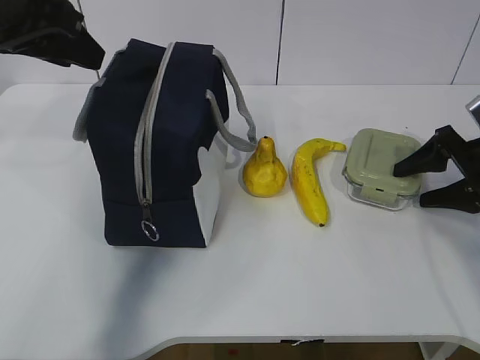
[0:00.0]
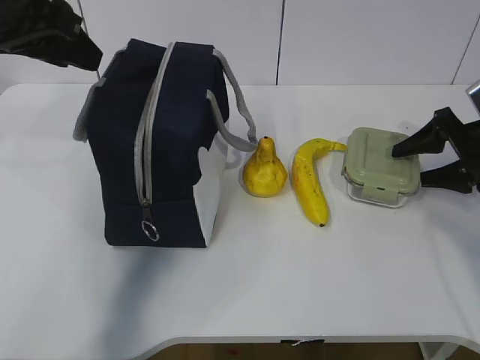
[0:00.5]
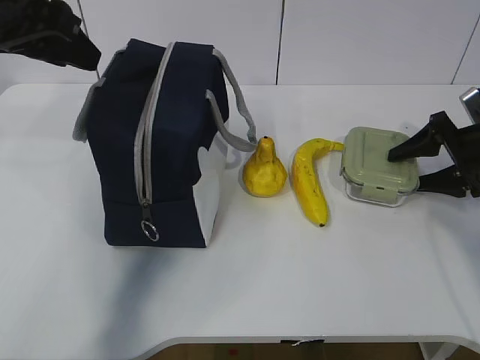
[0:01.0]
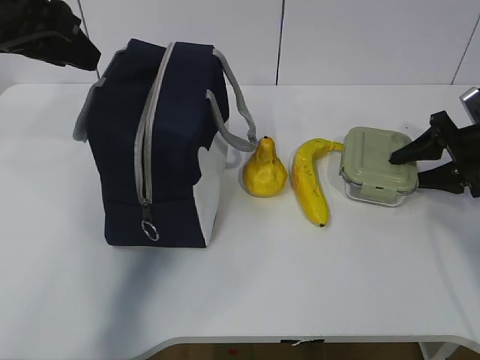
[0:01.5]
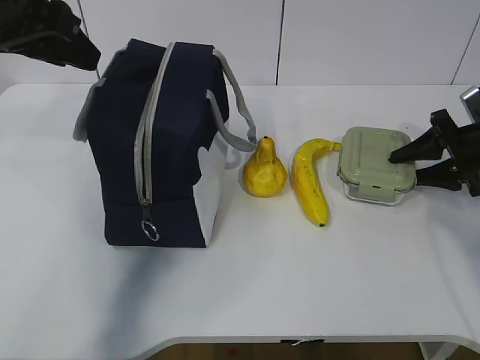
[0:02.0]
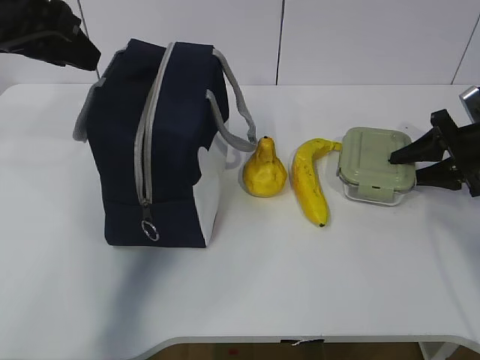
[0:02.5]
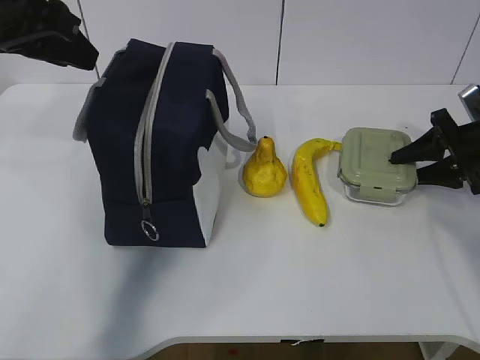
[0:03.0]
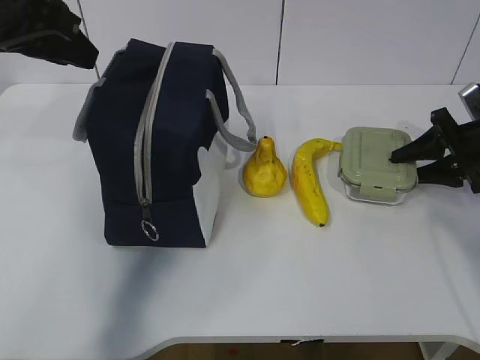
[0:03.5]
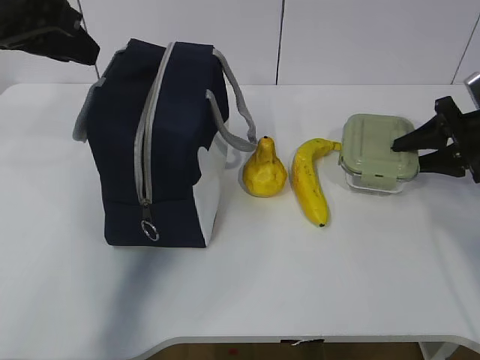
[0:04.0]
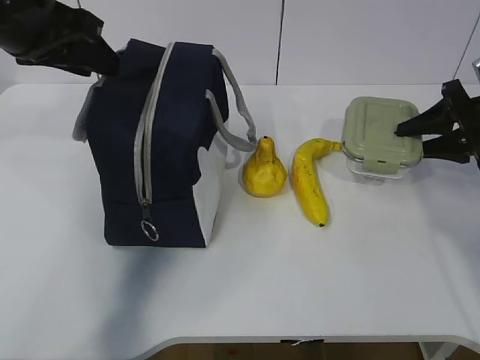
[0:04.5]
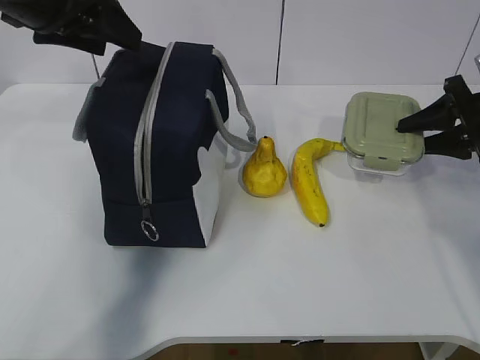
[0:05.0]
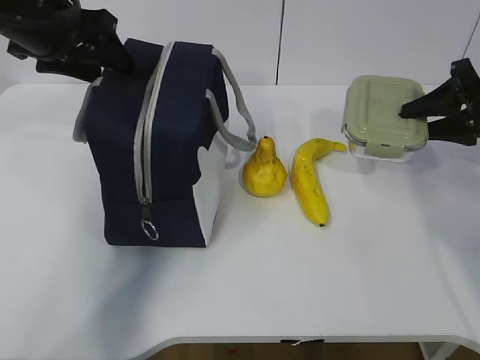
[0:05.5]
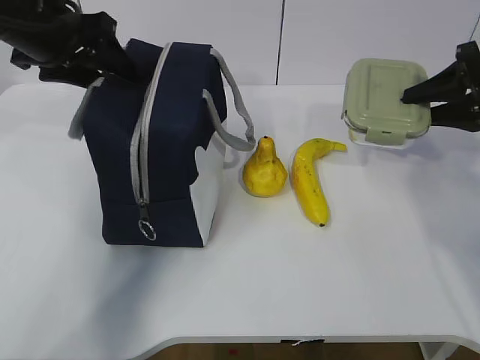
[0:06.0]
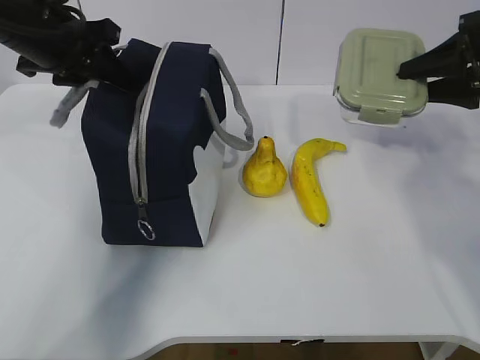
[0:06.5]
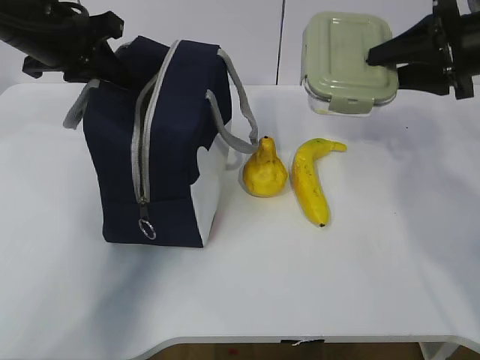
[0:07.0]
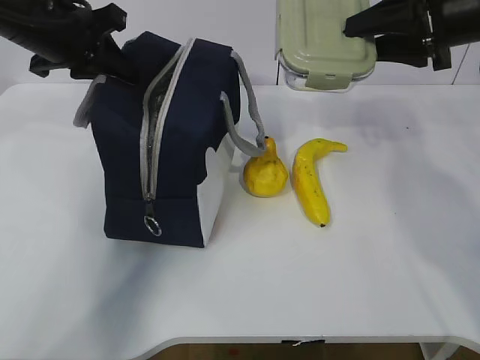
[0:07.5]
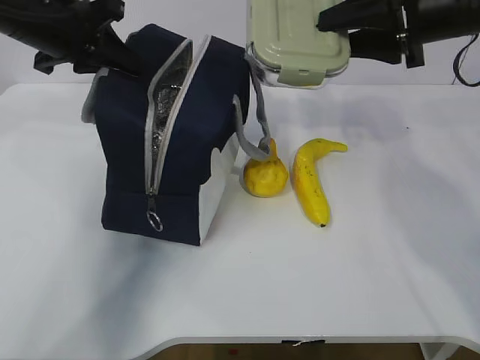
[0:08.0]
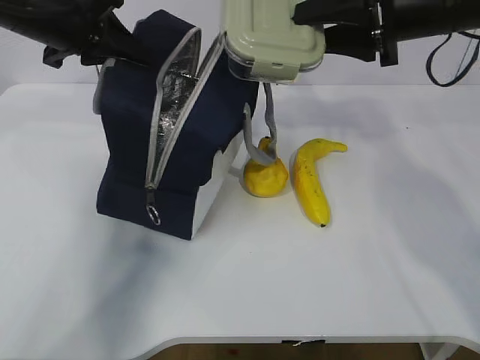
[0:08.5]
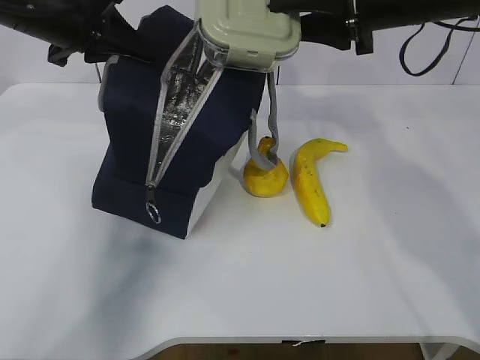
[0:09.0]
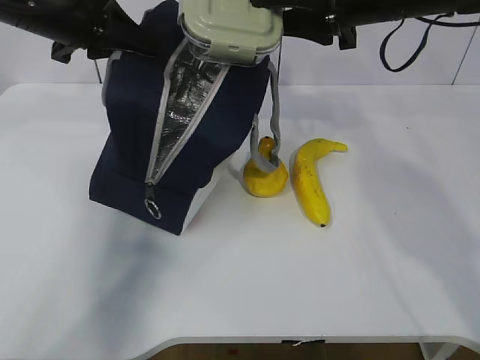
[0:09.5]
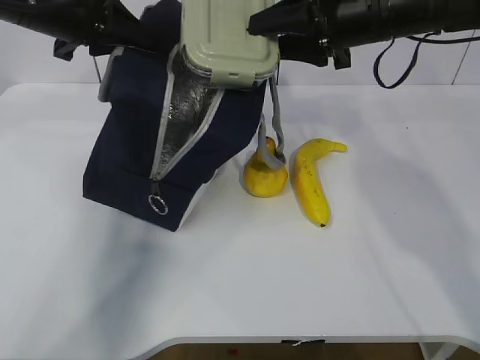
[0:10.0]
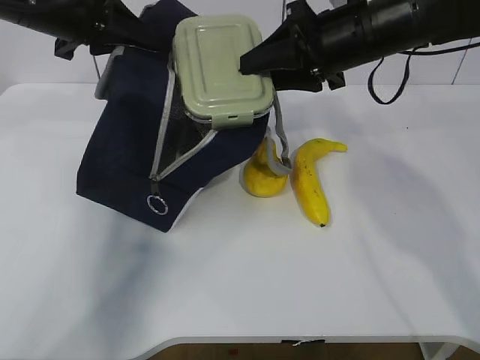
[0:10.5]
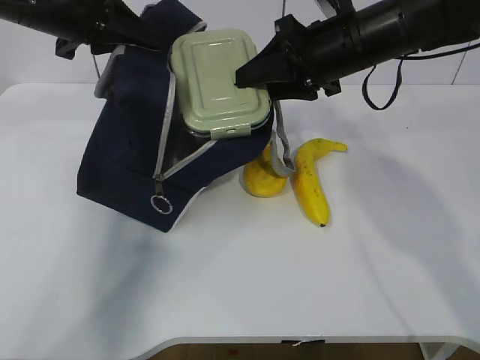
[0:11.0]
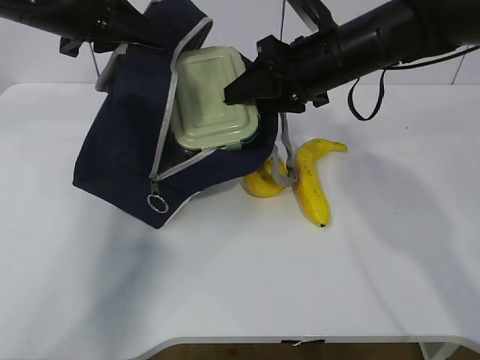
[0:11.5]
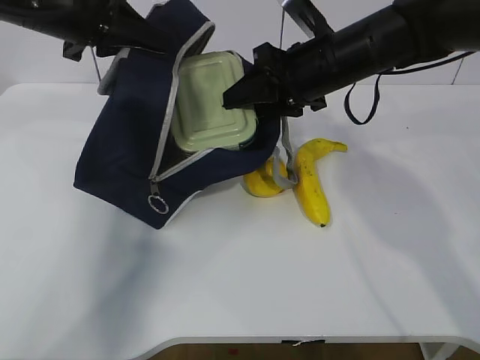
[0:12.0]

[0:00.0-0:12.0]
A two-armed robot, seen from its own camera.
Step, 0:01.0 to 0:06.0: Grab the lunch bag with your left hand.
Step, 0:06.5 to 0:10.5: Place it into the bag with your right hand.
0:00.0 to 0:04.0: The grippers stay close to where they were, moving slightly.
0:04.0 to 0:06.0: The right gripper goes approximately 10 cm upward. The left gripper moves forward, about 5 cm.
0:06.0 to 0:08.0: The right gripper shifts roughly 15 cm to the left and upward. Meanwhile the left gripper closes its fingers.
0:08.0 to 0:10.0: The right gripper is displaced to the left by approximately 5 cm.
0:10.0 to 0:12.0: The right gripper goes approximately 5 cm downward.

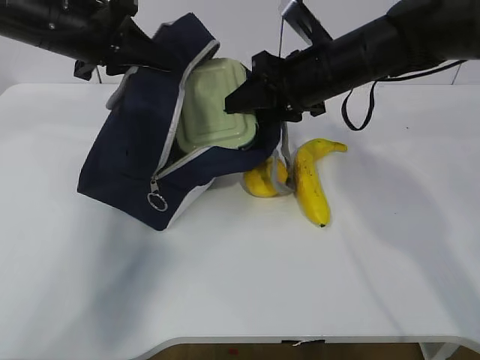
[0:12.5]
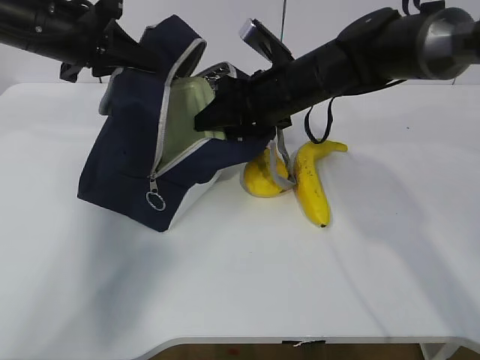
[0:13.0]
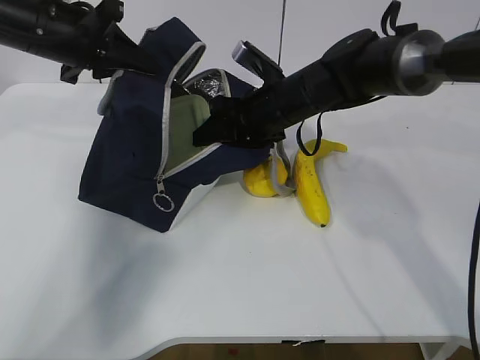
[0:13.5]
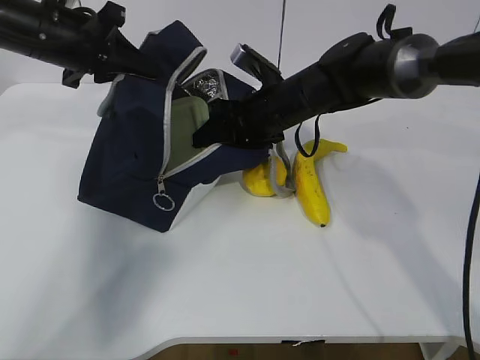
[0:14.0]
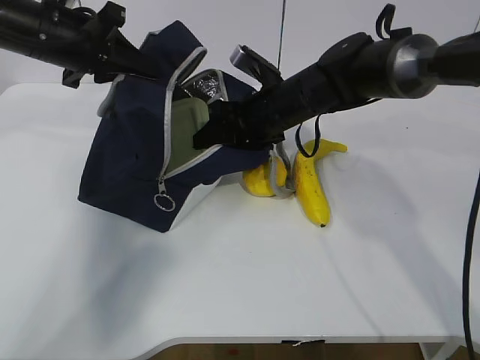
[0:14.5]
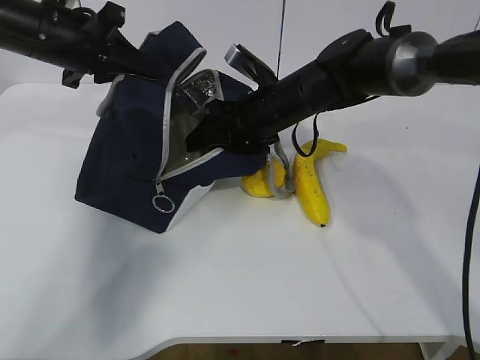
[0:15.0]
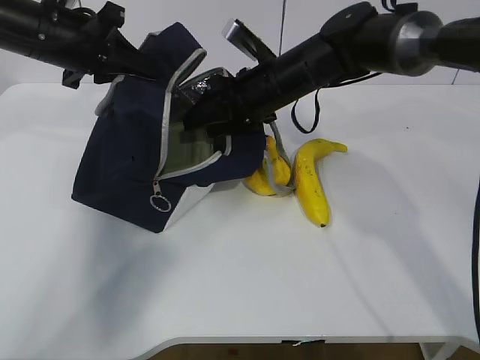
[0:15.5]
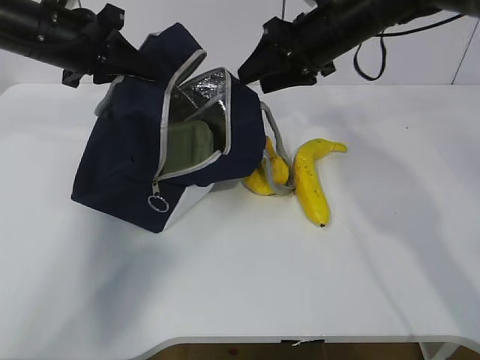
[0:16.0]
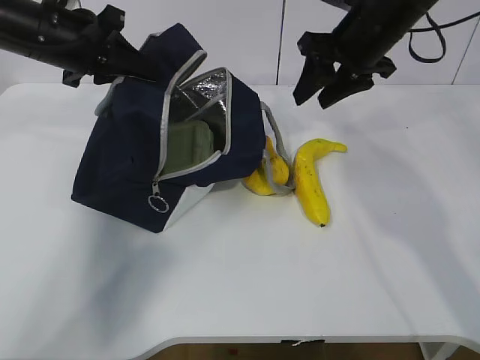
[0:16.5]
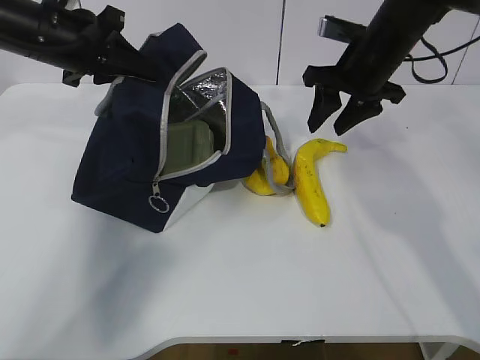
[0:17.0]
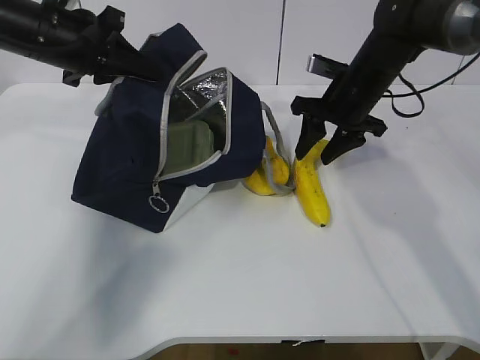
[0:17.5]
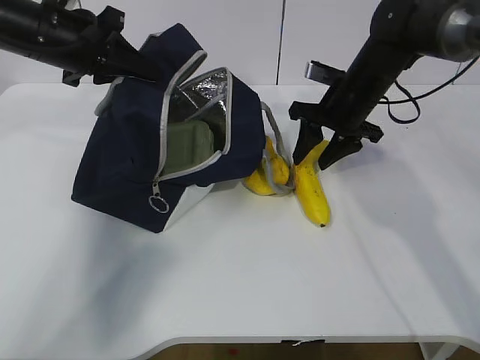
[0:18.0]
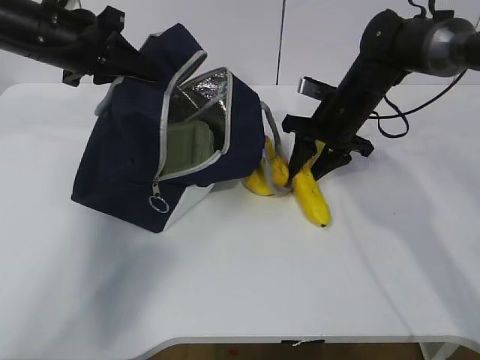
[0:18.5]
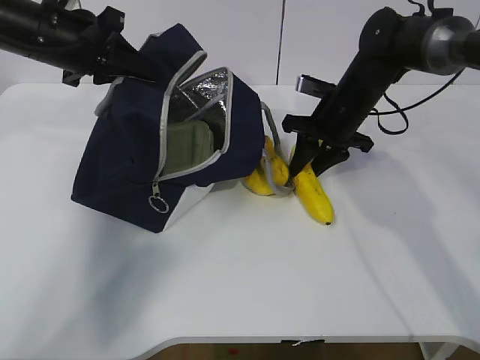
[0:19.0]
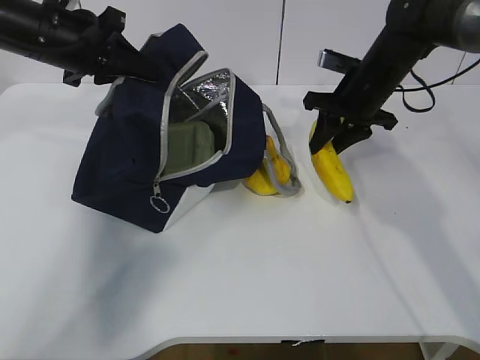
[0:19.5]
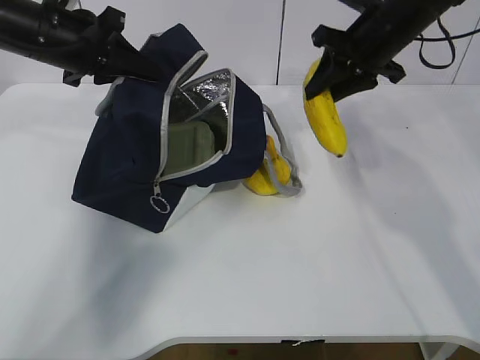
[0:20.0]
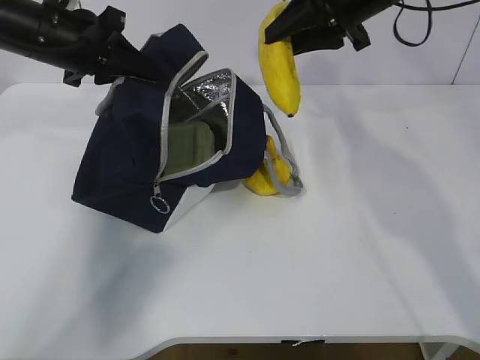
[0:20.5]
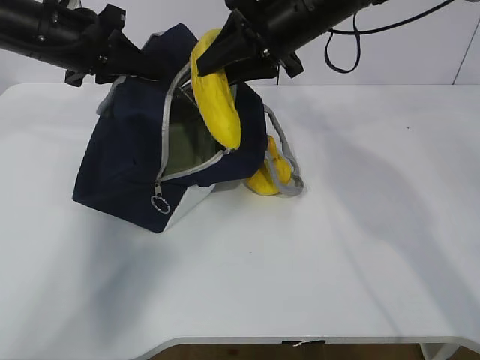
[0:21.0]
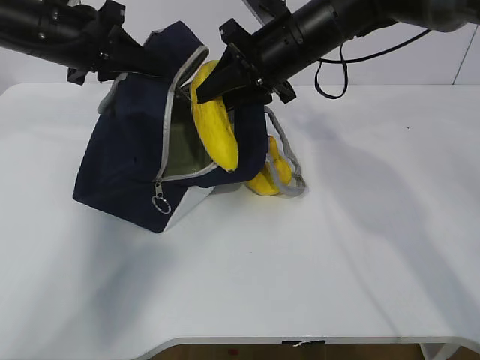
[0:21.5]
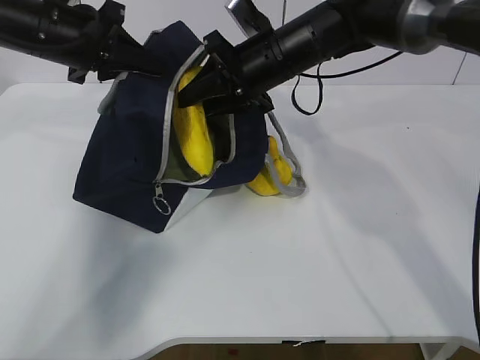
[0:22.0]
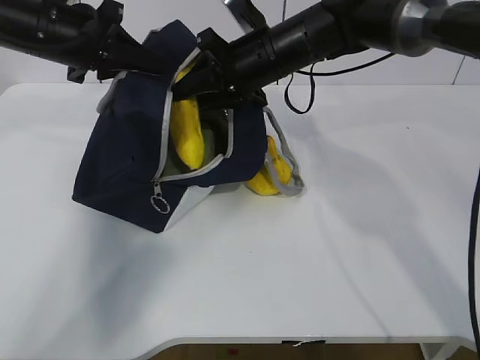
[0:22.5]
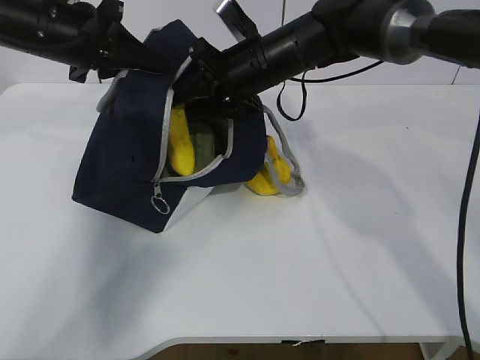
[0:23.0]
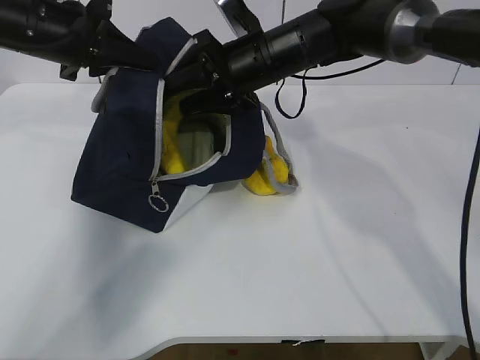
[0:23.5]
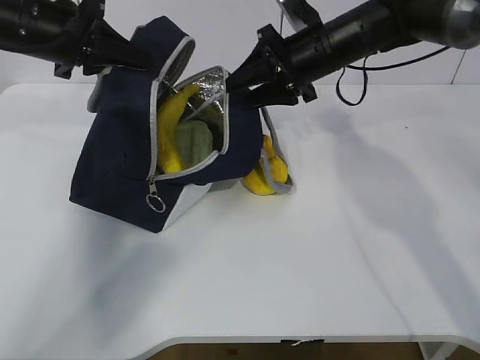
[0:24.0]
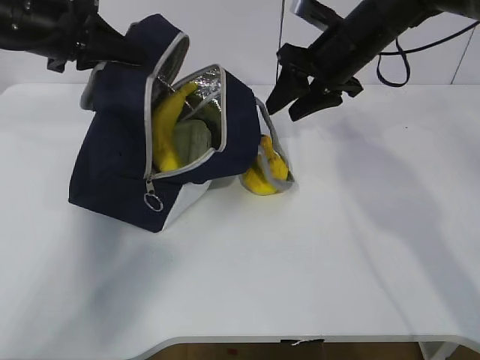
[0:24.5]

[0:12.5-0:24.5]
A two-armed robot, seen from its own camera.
Step, 0:14.0 to 0:17.0: Place it into the bag with your right hand.
0:12.5 to 0:14.5: The right gripper shifts some 5 cm downward.
0:14.5 to 0:16.5: The right gripper goes some 15 cm upward and to the right.
0:16.5 to 0:18.5: The right gripper travels downward by about 10 cm.
0:18.5 to 0:20.5: The right gripper is displaced upward by some 15 cm.
0:20.5 to 0:22.5: The right gripper goes some 15 cm to the left and downward.
0:22.5 to 0:24.5: The right gripper moves to the right, roughly 10 cm.

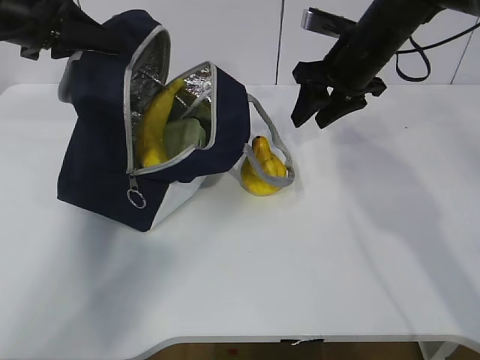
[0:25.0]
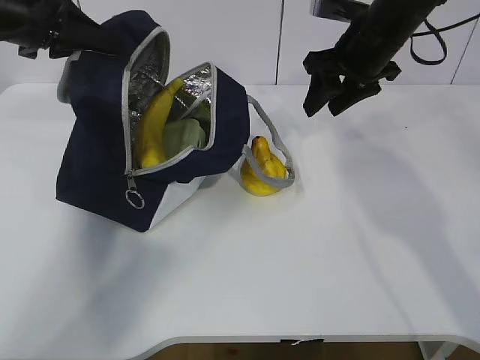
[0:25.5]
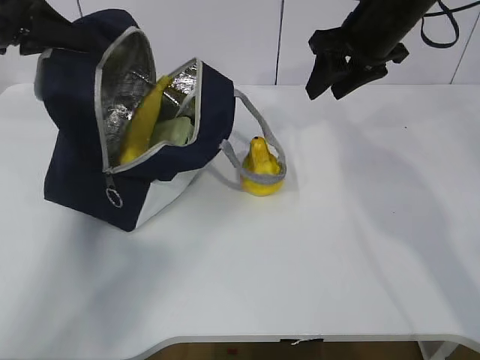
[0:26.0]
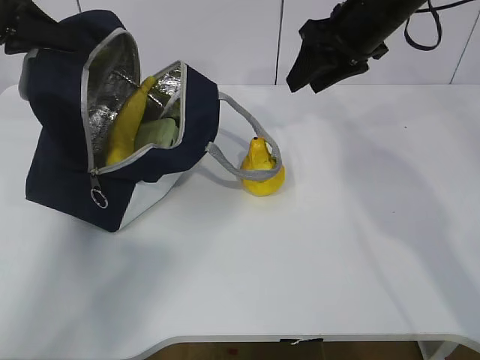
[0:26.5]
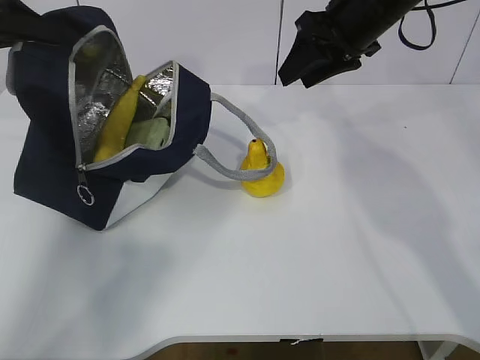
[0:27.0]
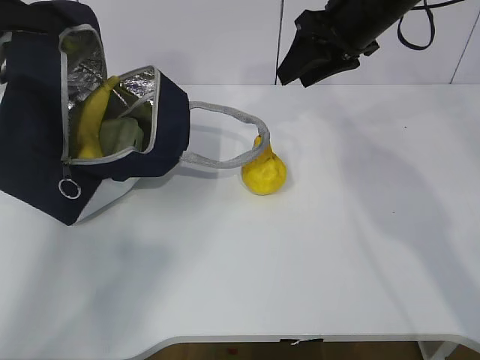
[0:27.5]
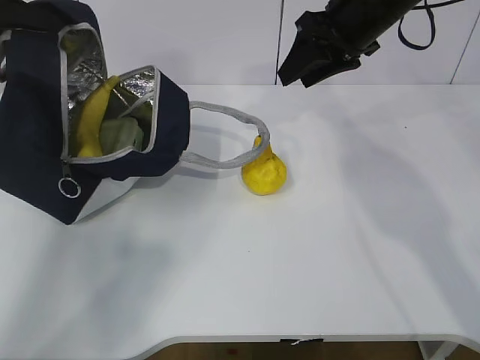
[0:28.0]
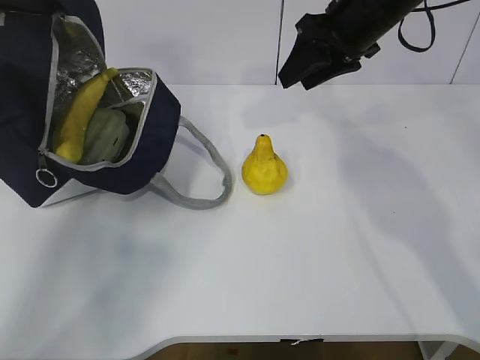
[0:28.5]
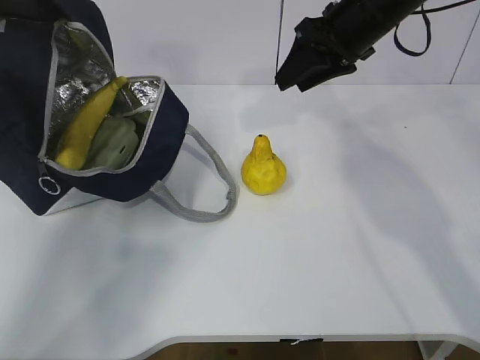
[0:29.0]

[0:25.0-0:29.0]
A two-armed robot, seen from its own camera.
0:25.0 to 0:27.0: The left gripper shifts about 5 cm to the left. Meanwhile the right gripper heads upward, covering about 5 cm.
0:27.0 to 0:29.0: The grippers make only small movements.
